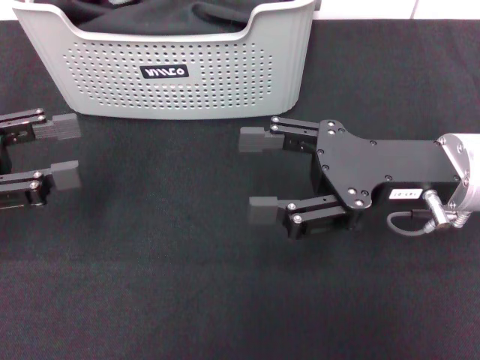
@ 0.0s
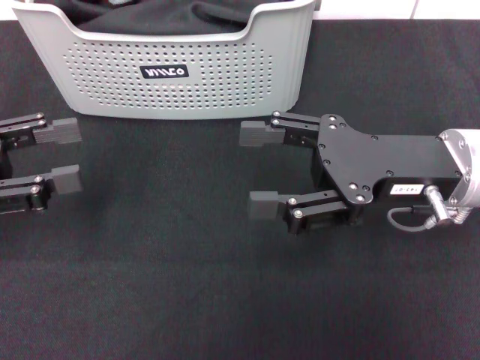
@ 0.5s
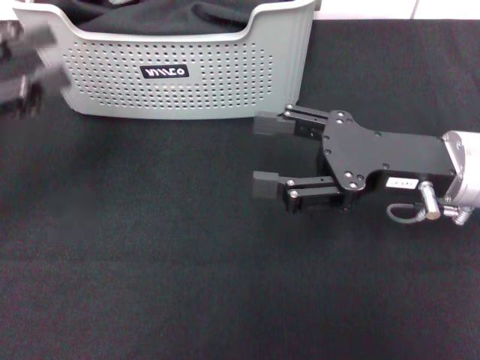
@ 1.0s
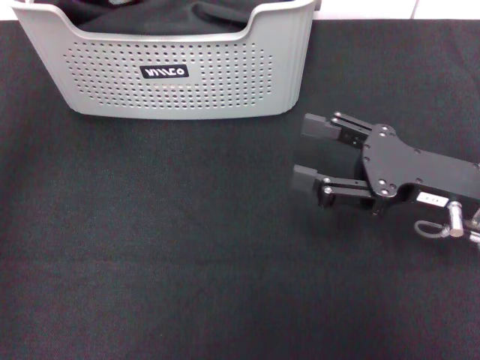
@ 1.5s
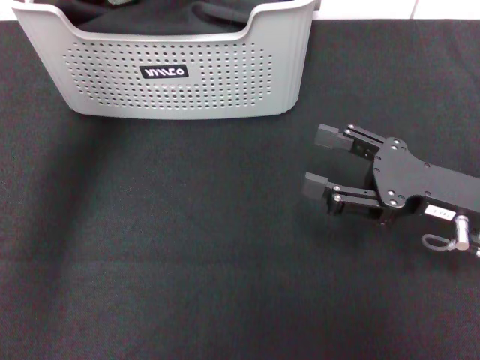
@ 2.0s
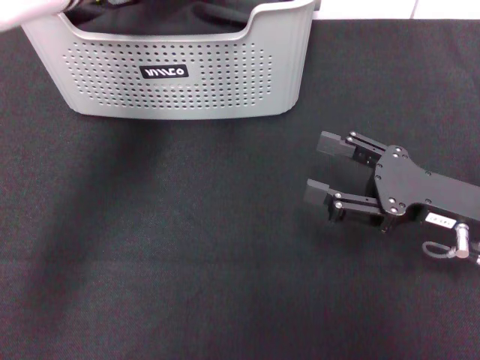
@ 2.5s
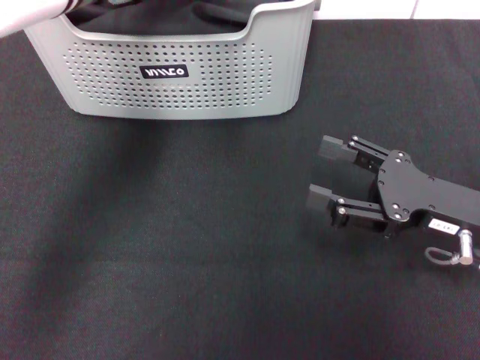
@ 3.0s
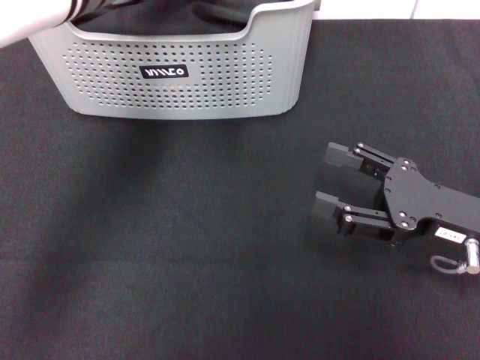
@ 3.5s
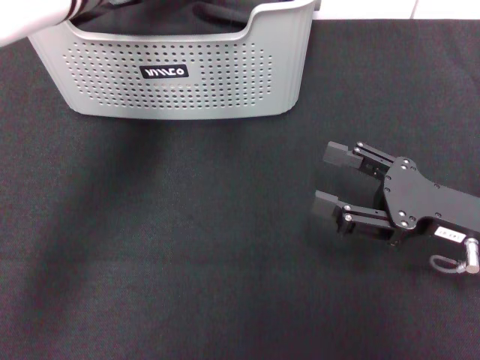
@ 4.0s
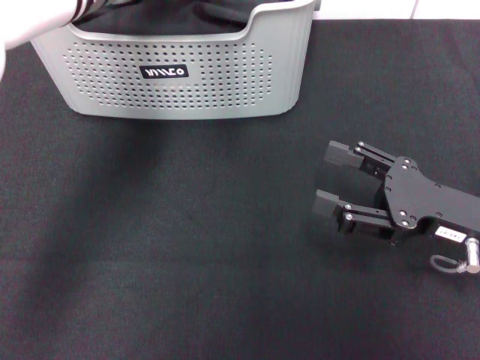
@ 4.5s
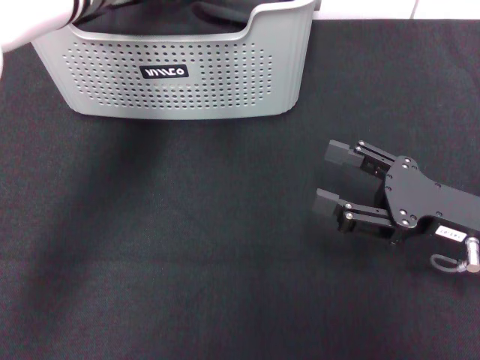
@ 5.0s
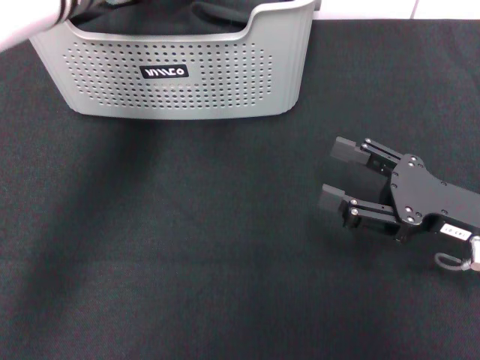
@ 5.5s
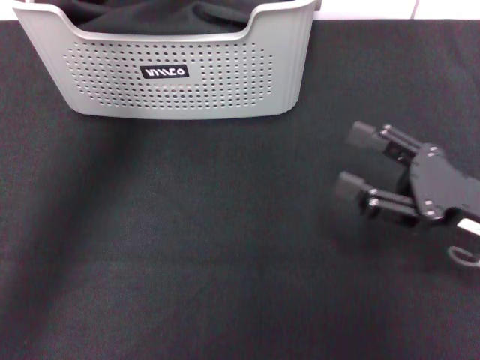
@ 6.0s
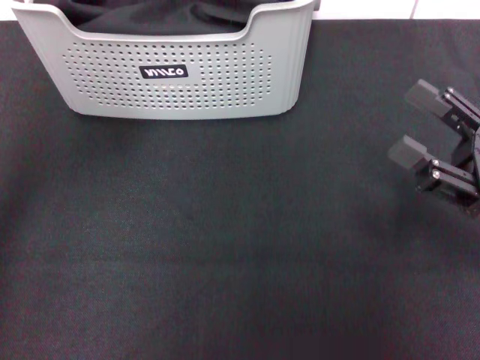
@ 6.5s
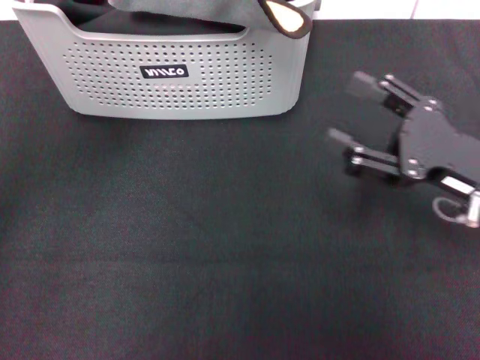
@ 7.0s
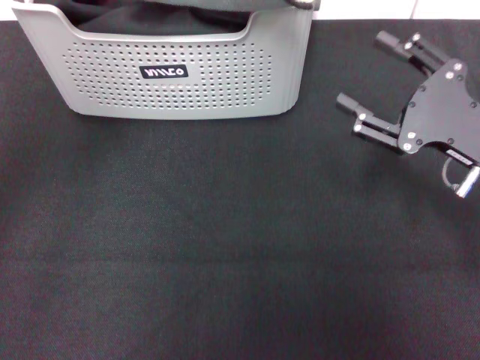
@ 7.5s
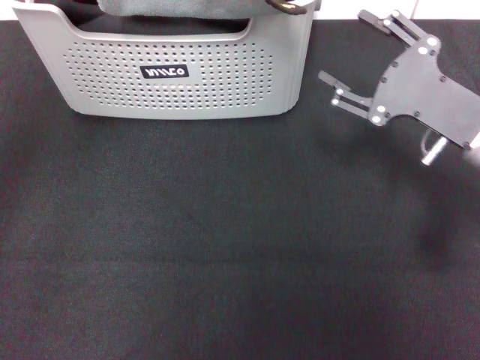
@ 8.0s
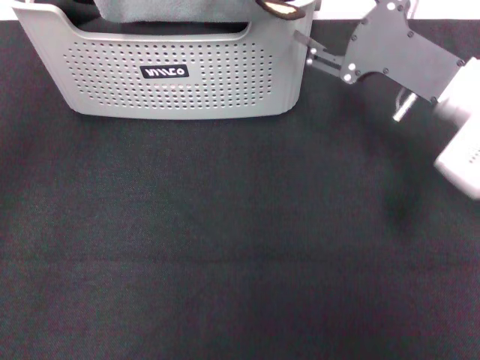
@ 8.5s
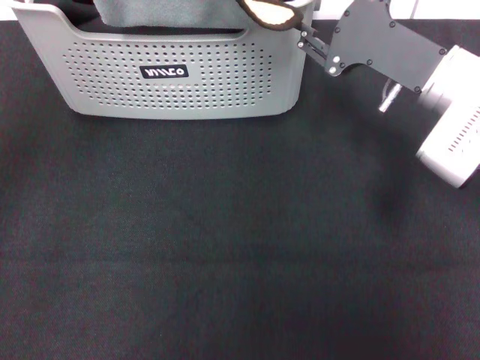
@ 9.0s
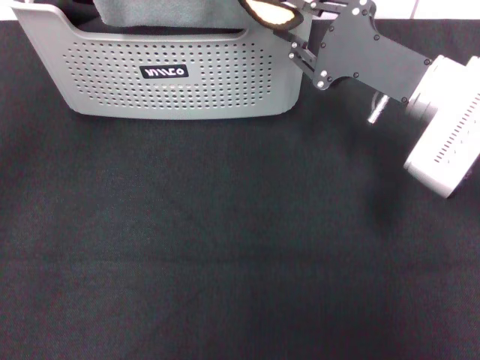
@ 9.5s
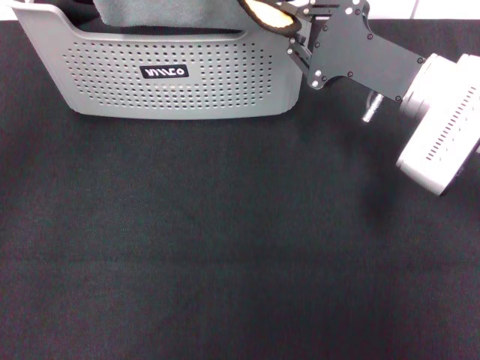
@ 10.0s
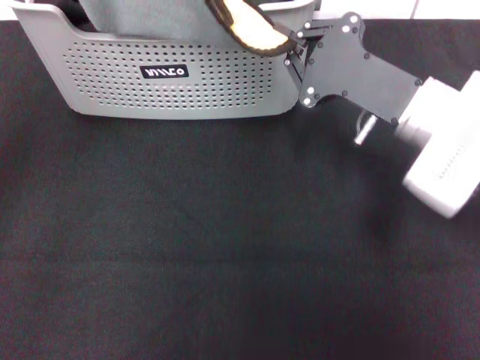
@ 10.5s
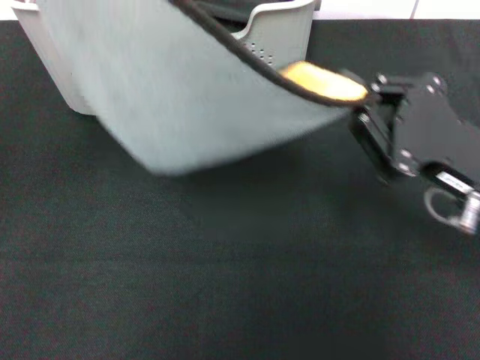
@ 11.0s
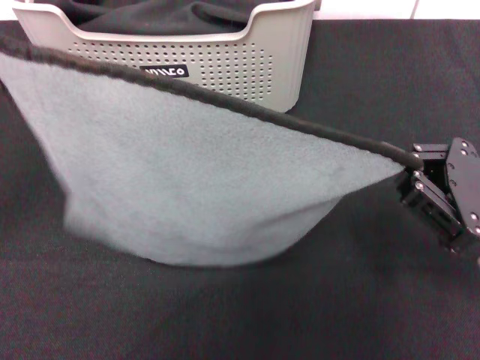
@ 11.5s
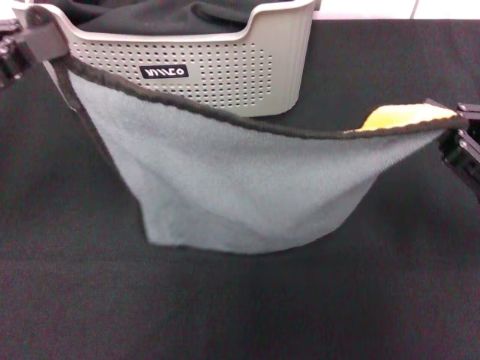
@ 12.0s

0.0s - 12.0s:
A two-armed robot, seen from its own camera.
Task of the whole recording: pick up the towel from the storage box and lay it flat on the black tablecloth.
Step, 0.0s - 5.0s: Pick up a towel with the left gripper.
Step, 5.5s - 10.0s: Spread the towel flat with the left gripper.
0.0s - 2.0s: The left gripper shifts roughly 25 cm to the right, forward and upward; the right gripper heads downward and to the right, covering roughly 5 cm.
2.0s - 4.0s: The left gripper closes up.
4.0s - 6.0s: The left gripper goes some 10 cm upward, and closes its fingers.
6.0s - 8.0s: The left gripper is displaced to the left by approximately 10 cm, while the right gripper moves forward, some 5 cm.
8.0s - 10.0s: The right gripper heads to the left, covering some 5 cm, and closes up.
10.0s - 12.0s: The left gripper goes approximately 10 cm downward and to the left; the right gripper shifts roughly 15 cm backward and to the right.

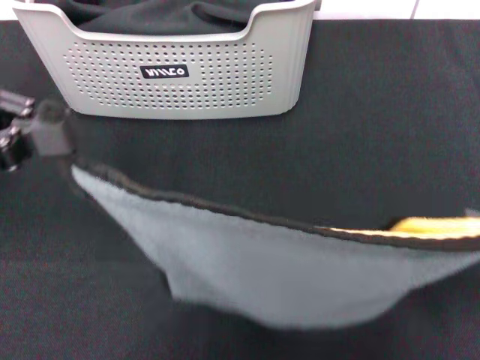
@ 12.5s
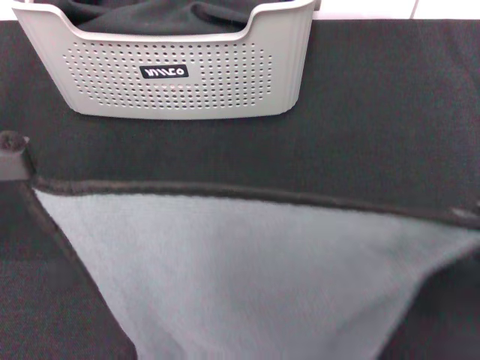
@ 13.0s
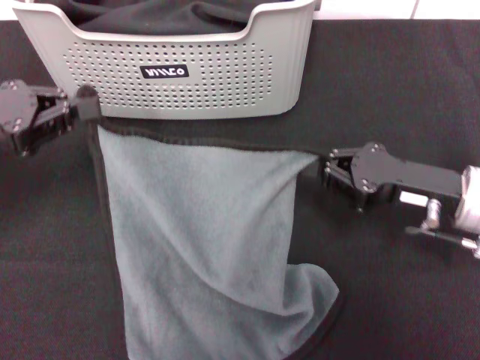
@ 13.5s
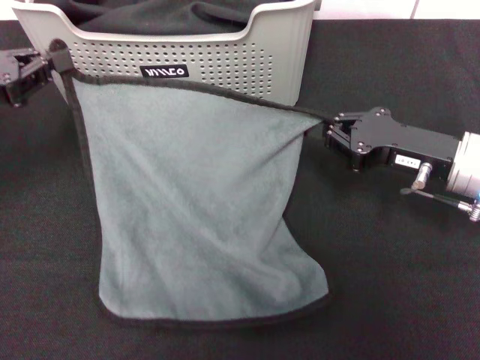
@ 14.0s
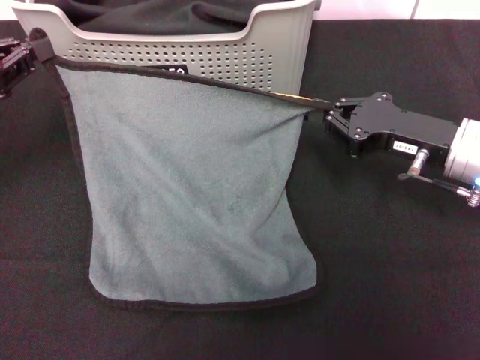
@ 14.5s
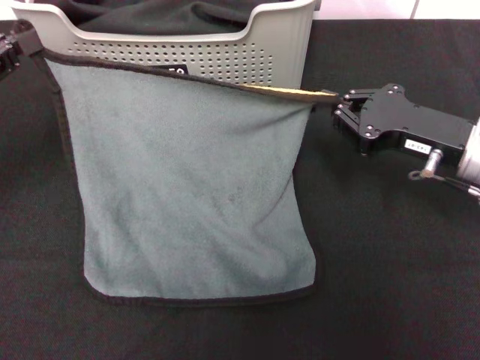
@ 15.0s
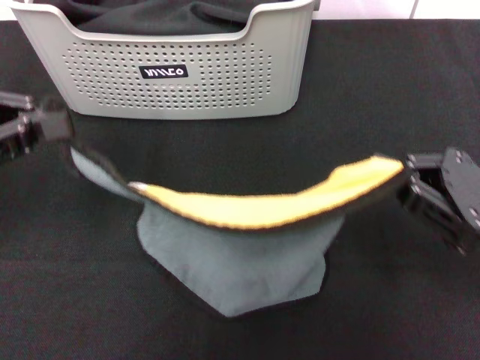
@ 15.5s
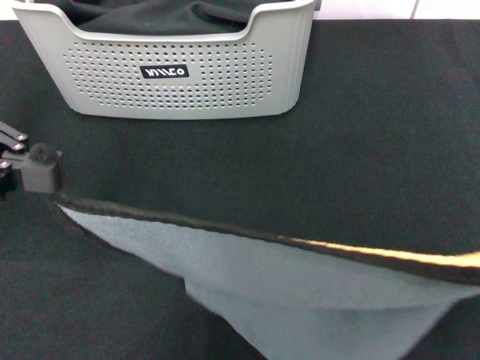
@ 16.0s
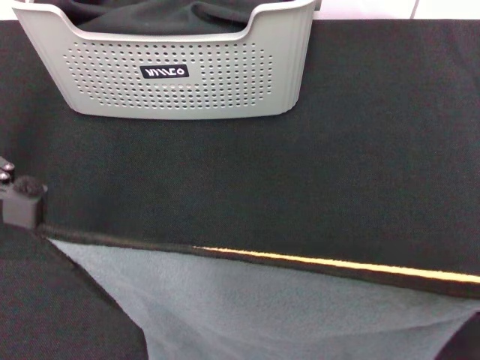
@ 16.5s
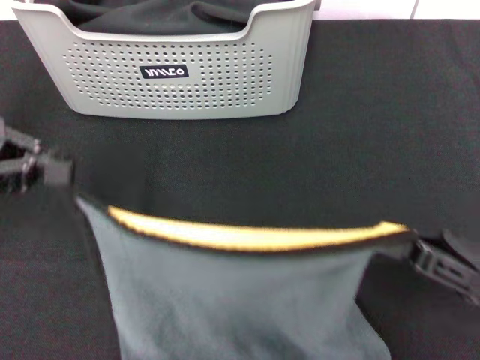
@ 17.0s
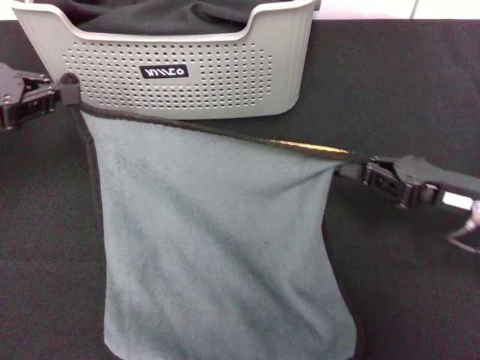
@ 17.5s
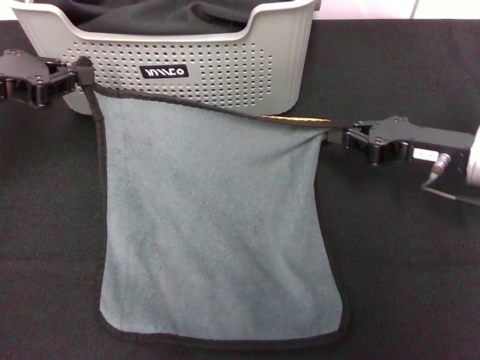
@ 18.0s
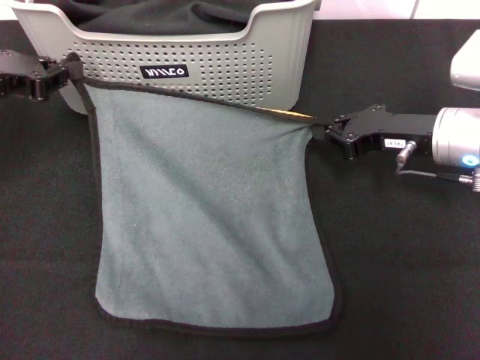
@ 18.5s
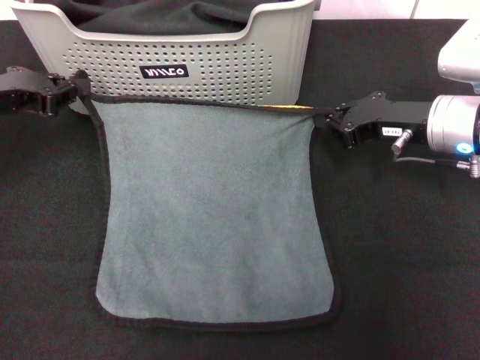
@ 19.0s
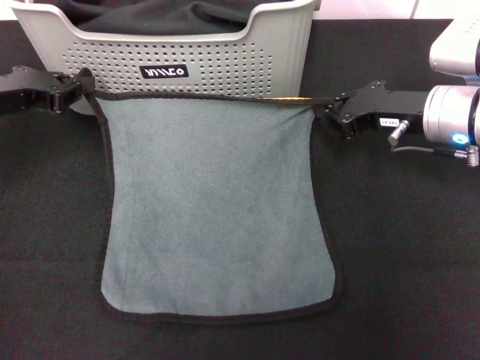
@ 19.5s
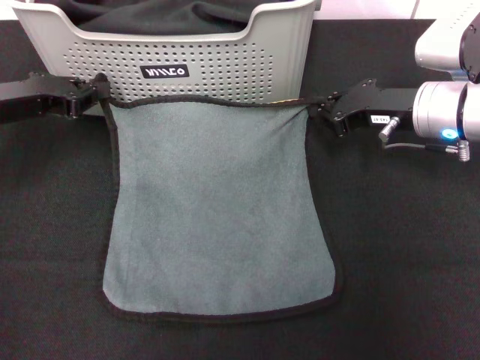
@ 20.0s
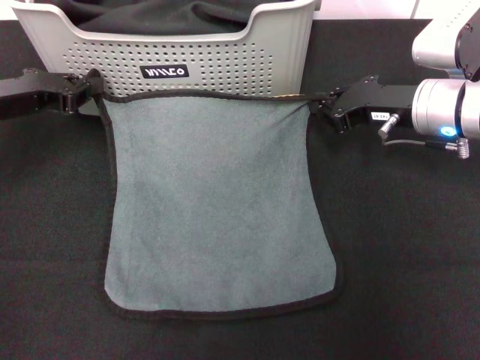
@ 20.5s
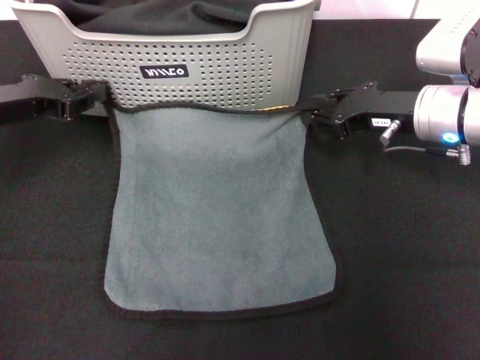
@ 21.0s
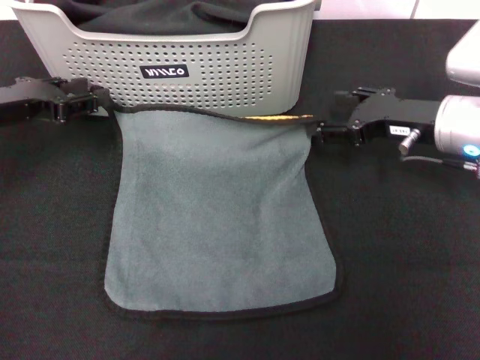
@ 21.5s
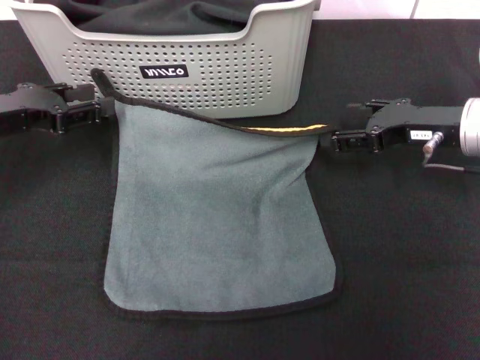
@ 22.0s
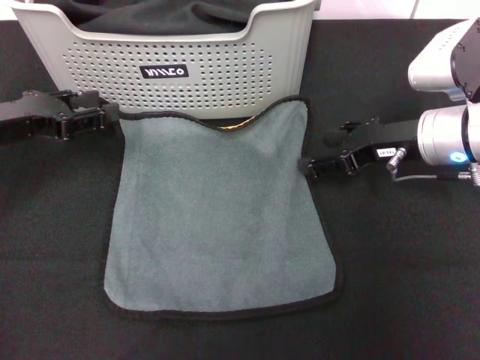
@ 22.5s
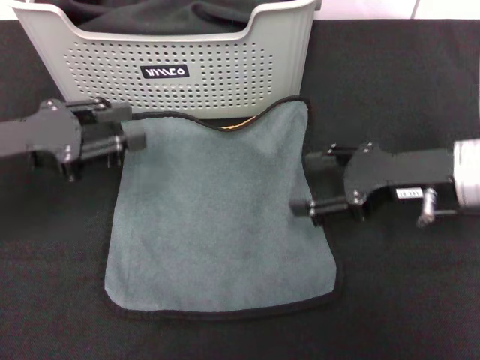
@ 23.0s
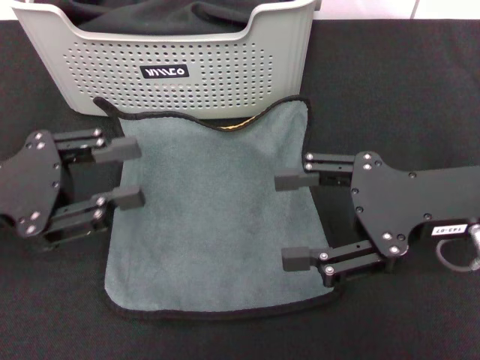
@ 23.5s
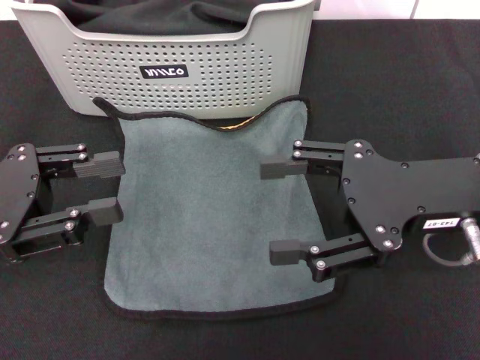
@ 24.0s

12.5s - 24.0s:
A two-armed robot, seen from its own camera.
Task of the whole recording: pick up the towel from the storage box and lay it flat on the black tablecloth.
Step, 12.5s - 22.0s: Spread the towel flat with the right gripper.
12.5s - 14.5s: The left gripper travels downward by some 5 cm, while the right gripper moves forward and to the left, roughly 15 cm.
14.5s - 16.5s: The left gripper goes approximately 10 cm upward; the right gripper shifts about 20 cm backward and to the right.
16.5s - 18.5s: The left gripper goes approximately 15 cm downward and forward; the right gripper is displaced forward and to the left by approximately 25 cm.
18.5s - 20.0s: There are only small adjustments of the grippers.
20.0s - 22.0s: The right gripper opens its fingers. The left gripper opens its fingers.
22.0s - 24.0s: The left gripper travels backward by approximately 10 cm. The right gripper travels backward and upward by roughly 10 cm.
